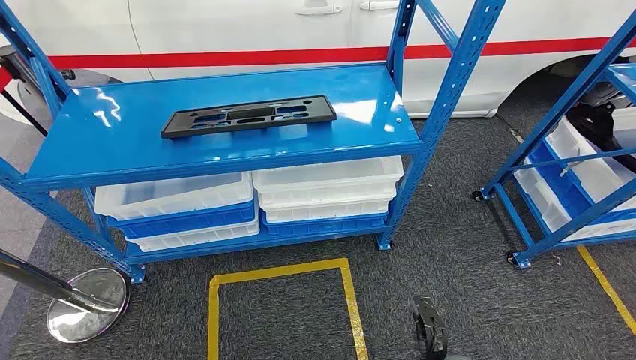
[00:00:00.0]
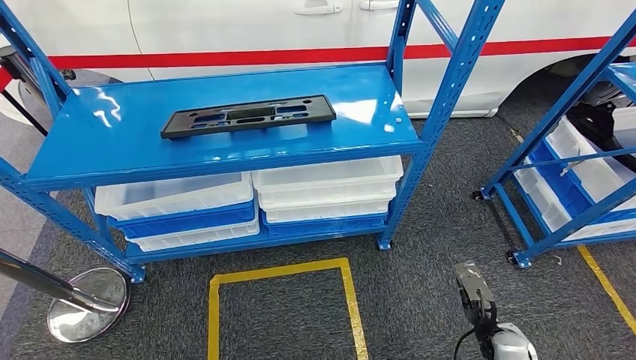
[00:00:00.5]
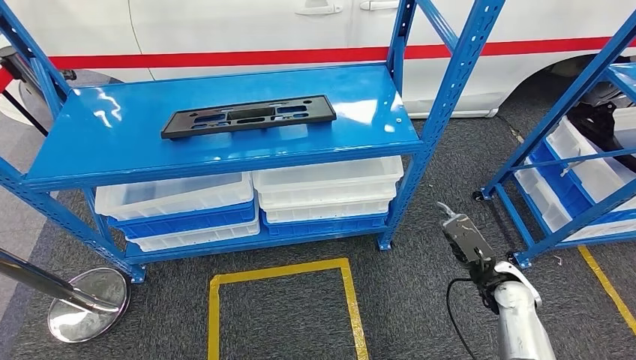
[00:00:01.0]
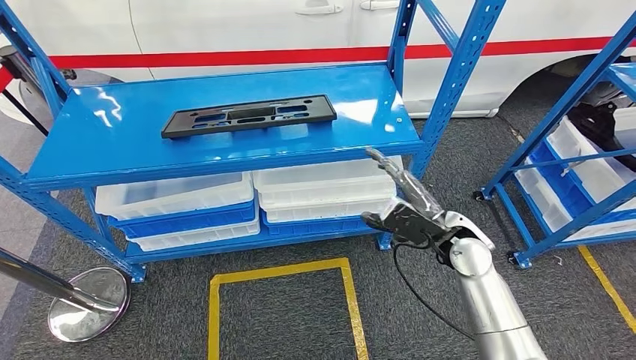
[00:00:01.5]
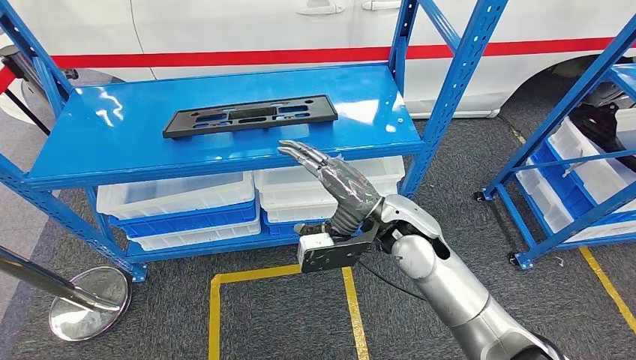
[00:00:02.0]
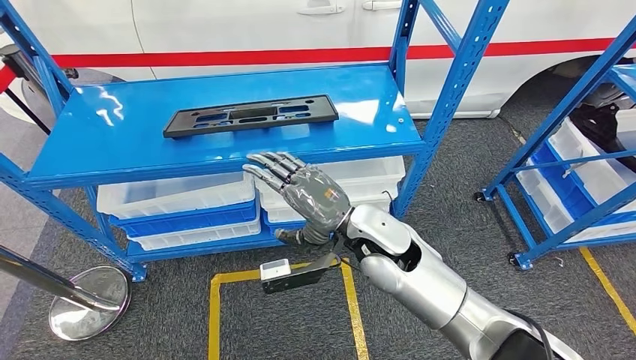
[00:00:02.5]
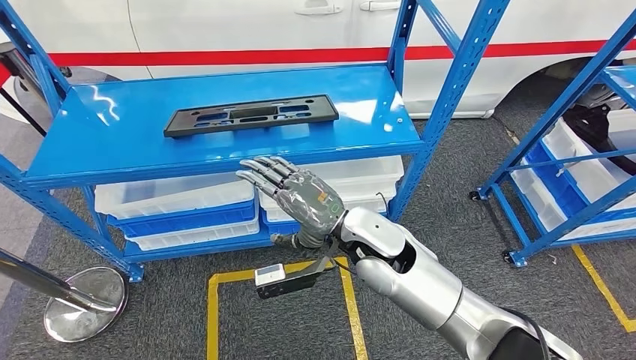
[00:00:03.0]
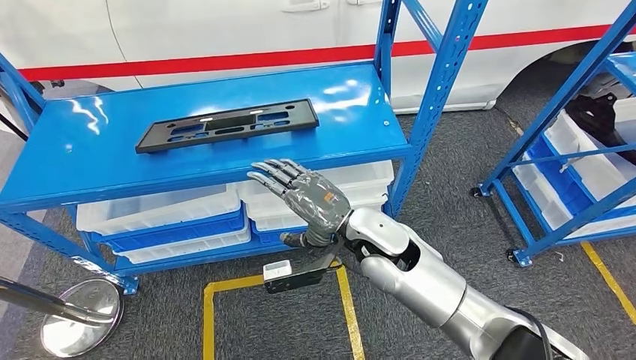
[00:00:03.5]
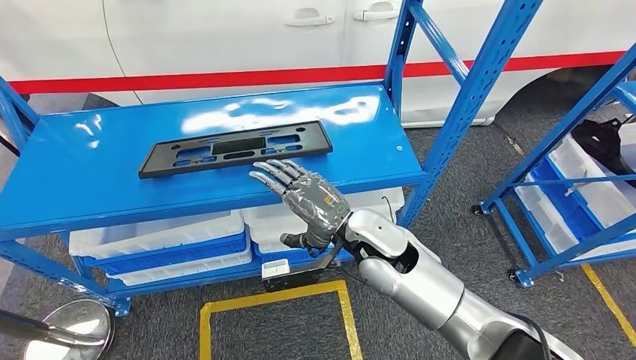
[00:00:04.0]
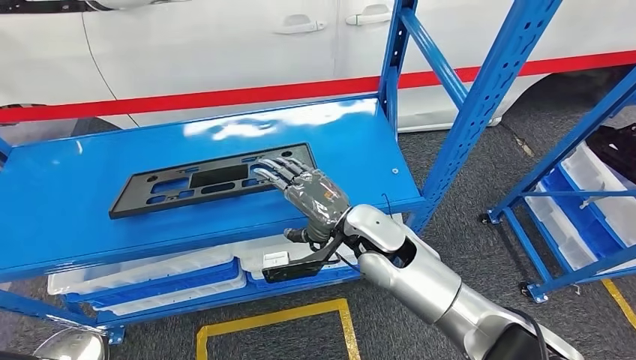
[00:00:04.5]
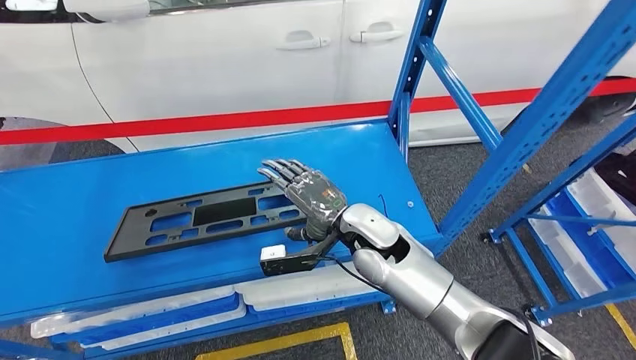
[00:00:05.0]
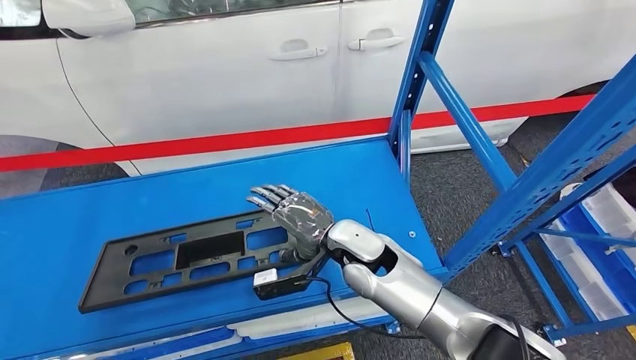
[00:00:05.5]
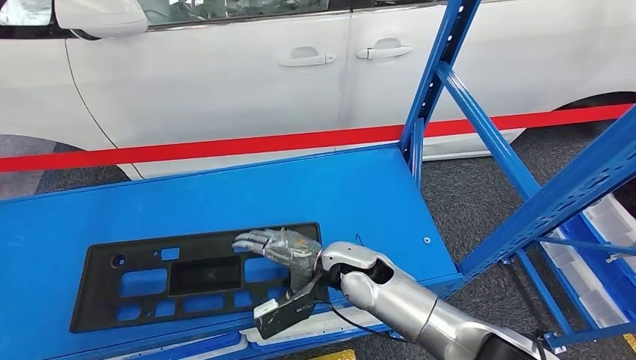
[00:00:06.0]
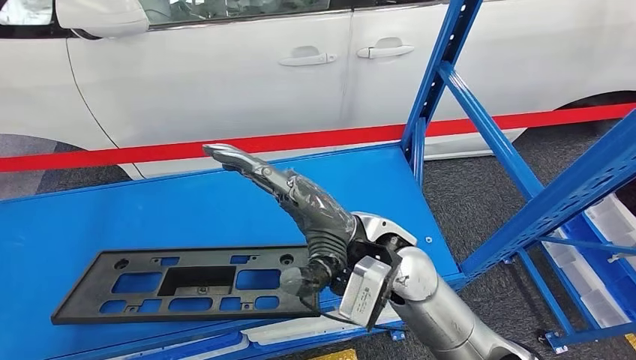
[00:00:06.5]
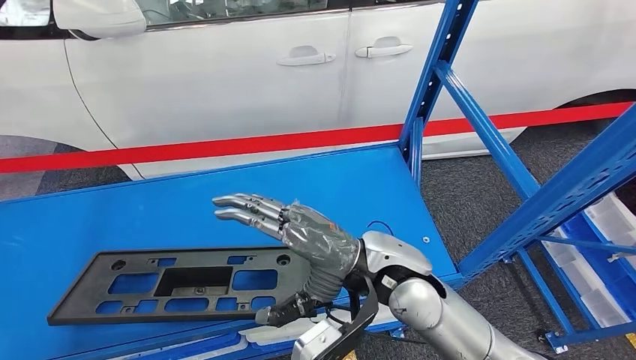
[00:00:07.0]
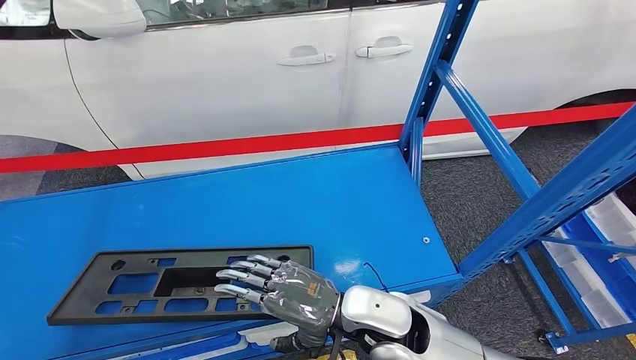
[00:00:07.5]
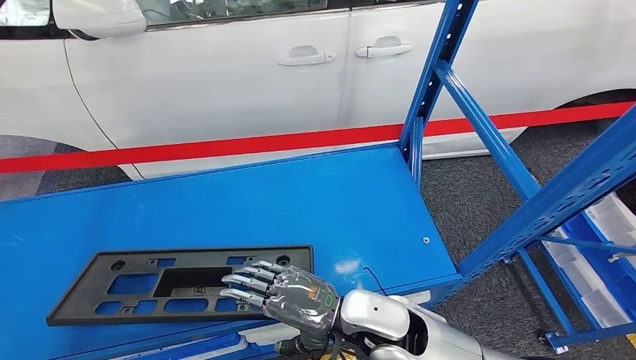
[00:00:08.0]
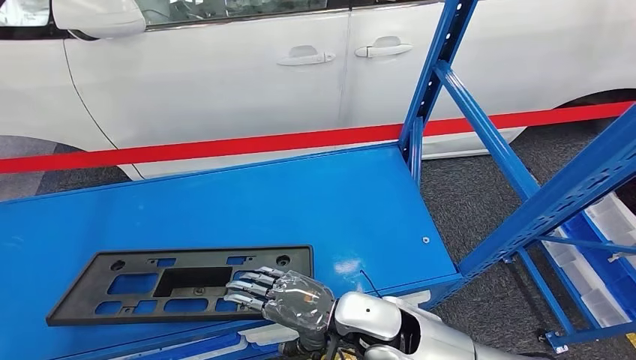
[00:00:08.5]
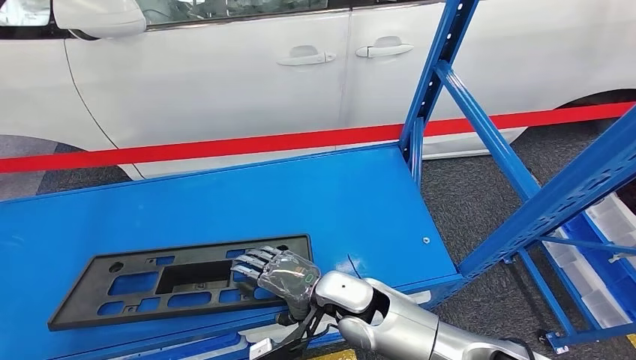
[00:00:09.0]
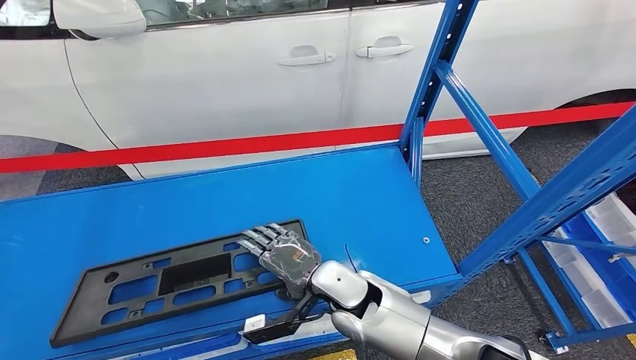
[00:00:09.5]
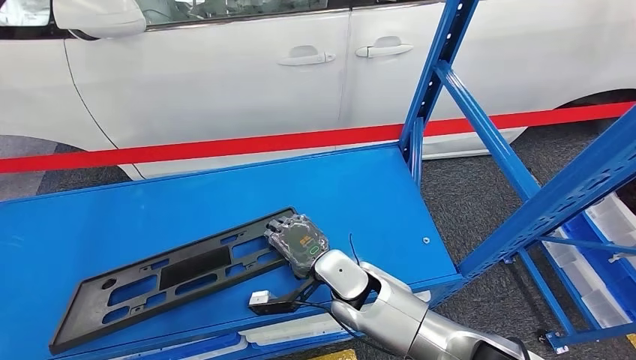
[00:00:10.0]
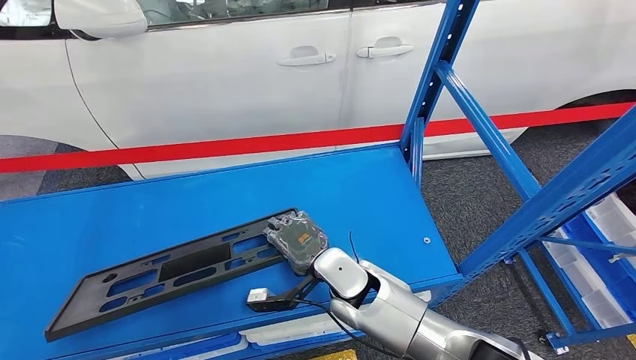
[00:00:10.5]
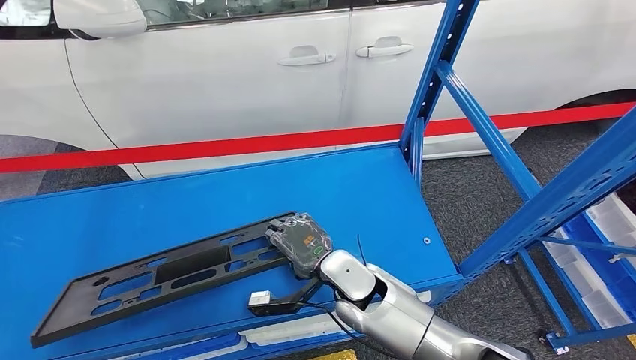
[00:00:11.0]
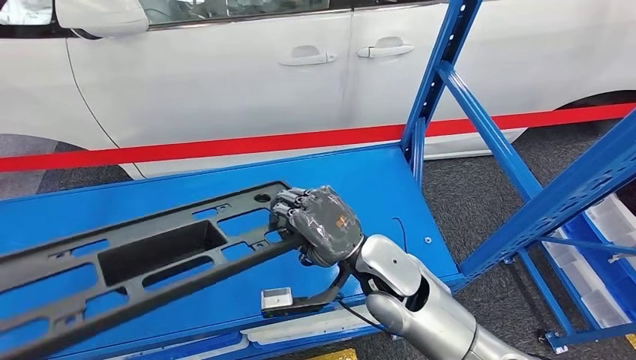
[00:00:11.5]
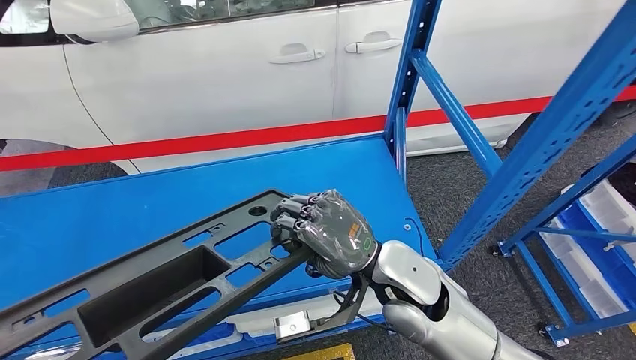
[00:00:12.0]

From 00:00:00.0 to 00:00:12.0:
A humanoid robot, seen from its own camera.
Step, from 00:00:00.0 to 00:00:11.5: Pick up the large material from the shelf.
From 00:00:06.0 to 00:00:08.0: The right hand moves backward, about 10 cm, and reaches about 15 cm upward, then returns.
From 00:00:08.0 to 00:00:10.0: The right hand shifts about 10 cm forward.

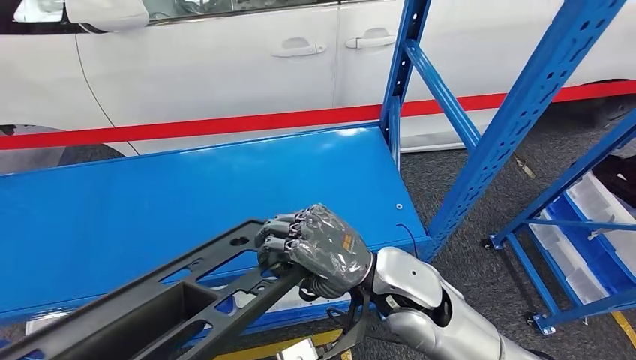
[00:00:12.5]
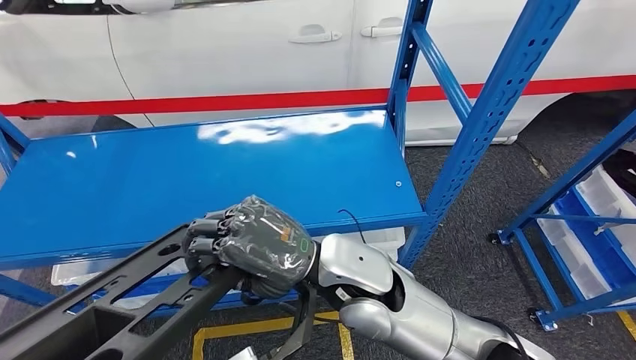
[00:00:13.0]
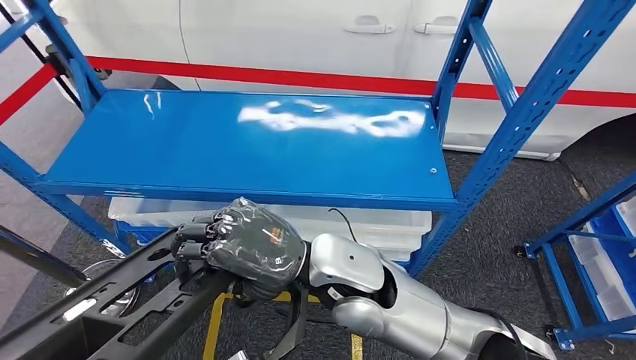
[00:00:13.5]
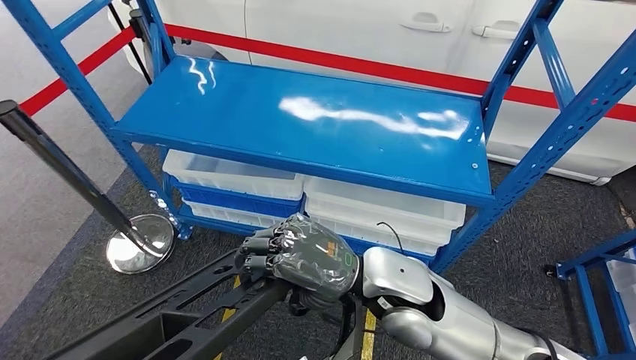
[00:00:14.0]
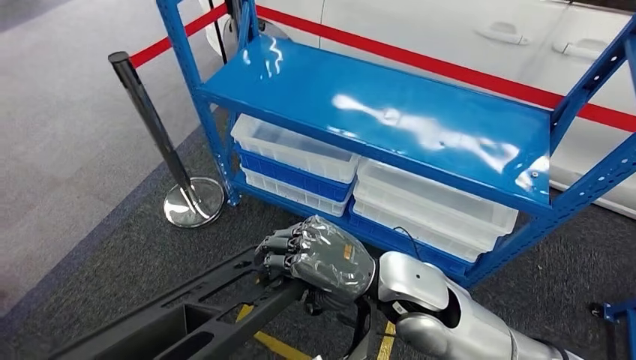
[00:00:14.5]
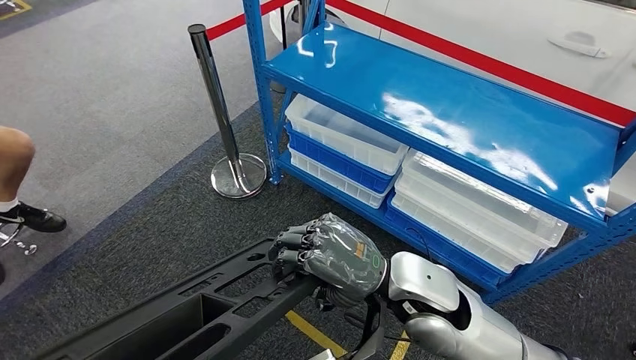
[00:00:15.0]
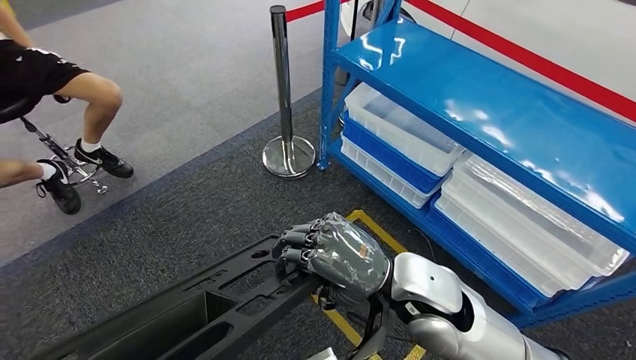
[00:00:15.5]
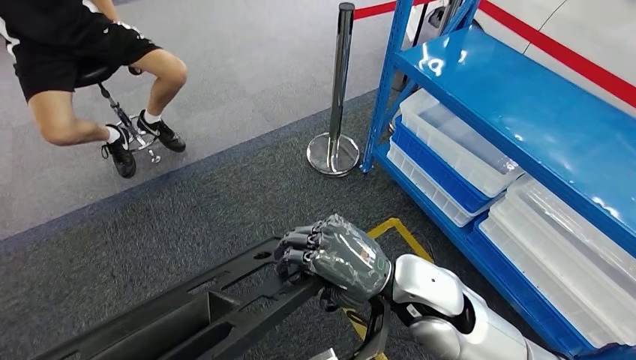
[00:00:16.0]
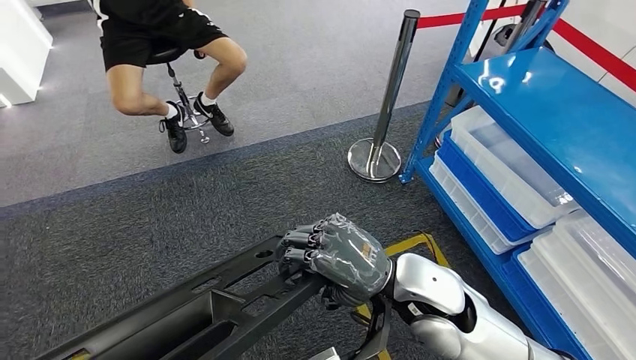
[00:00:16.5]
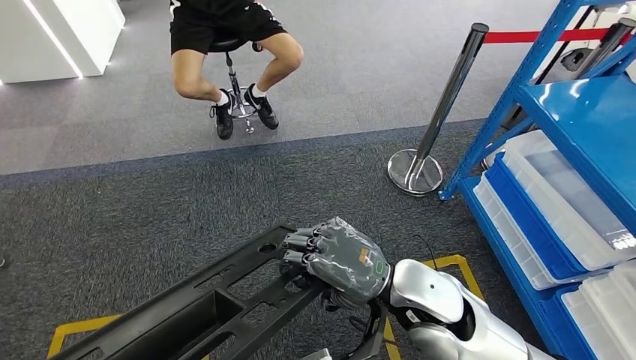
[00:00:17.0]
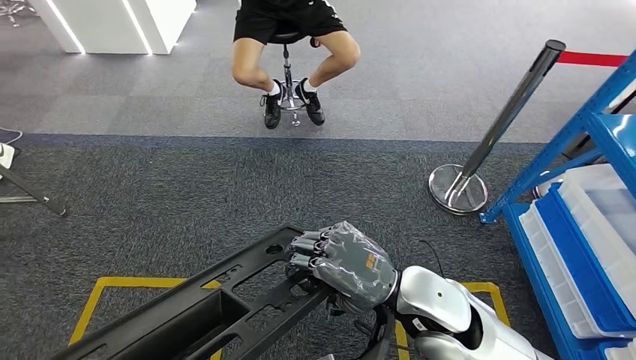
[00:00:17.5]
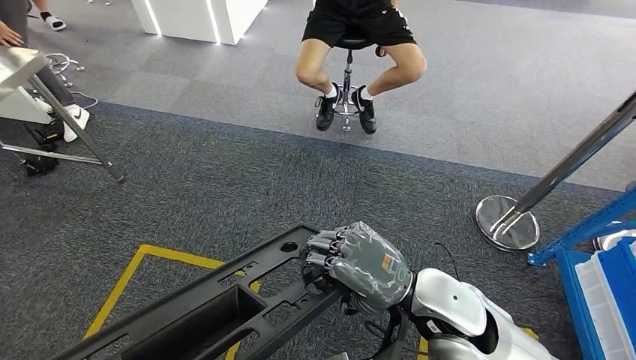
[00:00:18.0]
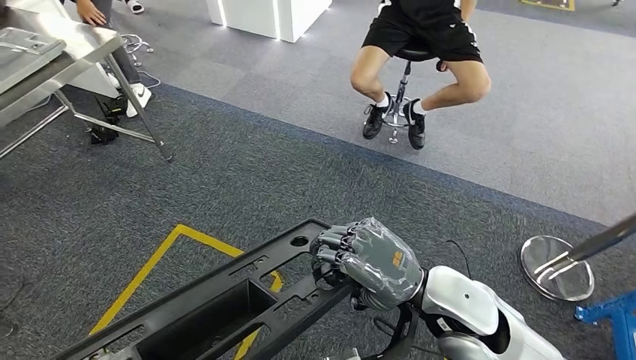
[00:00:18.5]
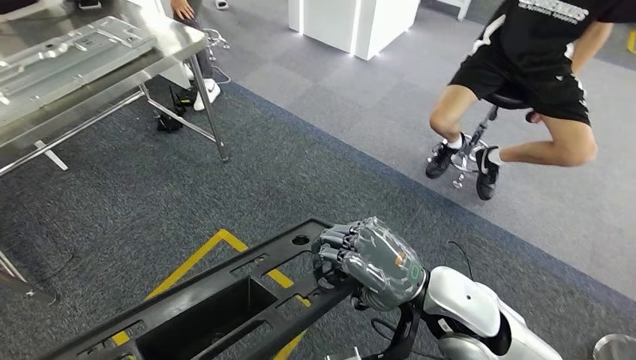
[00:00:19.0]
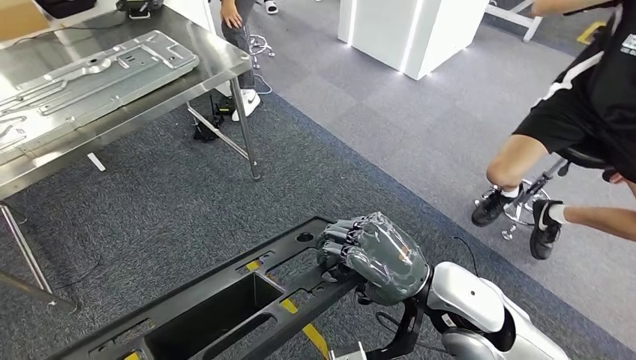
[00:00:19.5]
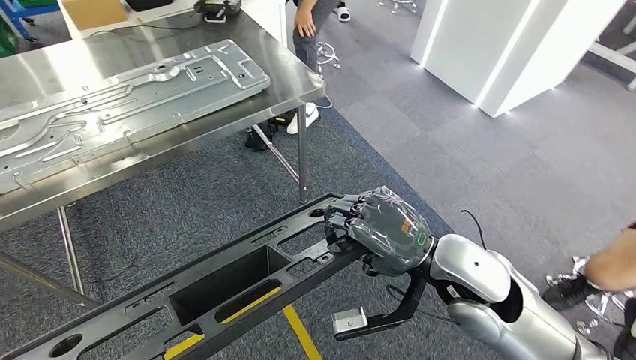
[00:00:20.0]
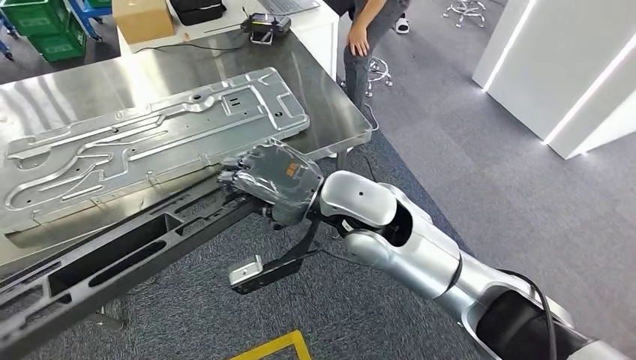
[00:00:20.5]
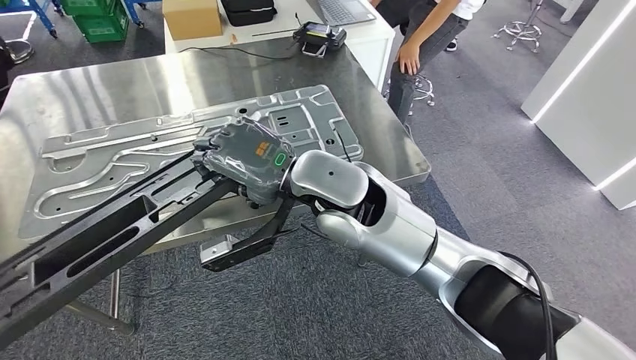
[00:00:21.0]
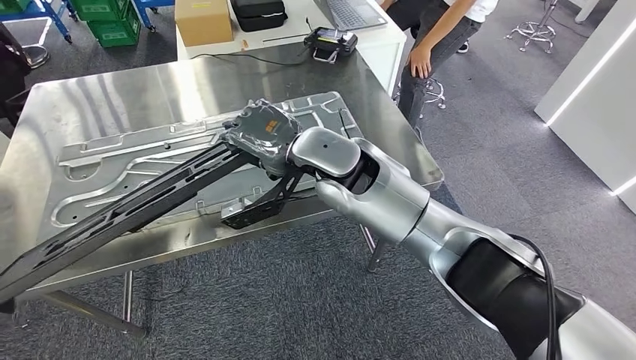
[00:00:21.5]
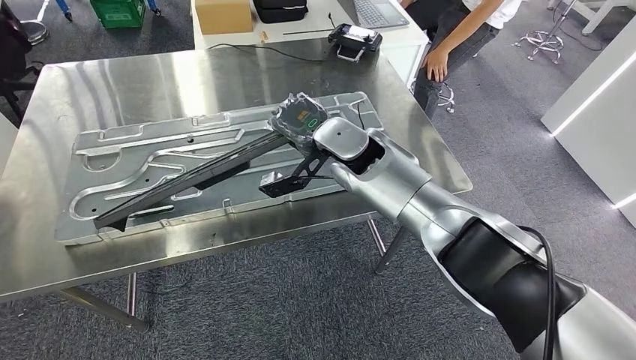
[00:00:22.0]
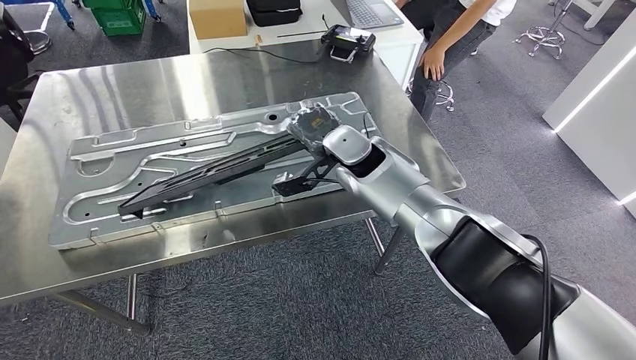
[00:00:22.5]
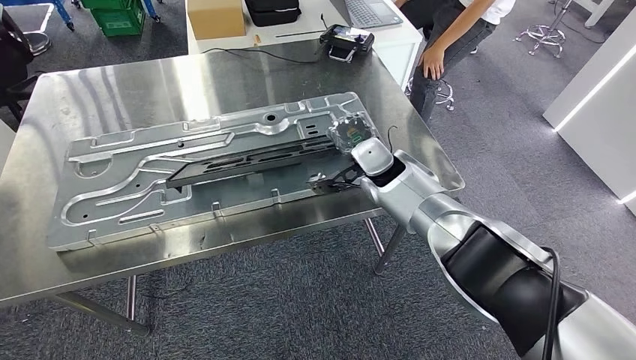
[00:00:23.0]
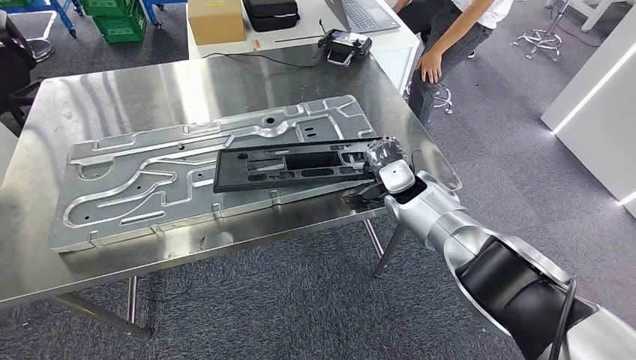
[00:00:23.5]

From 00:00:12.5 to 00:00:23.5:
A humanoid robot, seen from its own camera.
Step, from 00:00:12.5 to 00:00:21.0: Move the large material to the workbench.
